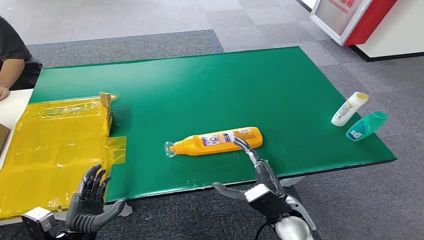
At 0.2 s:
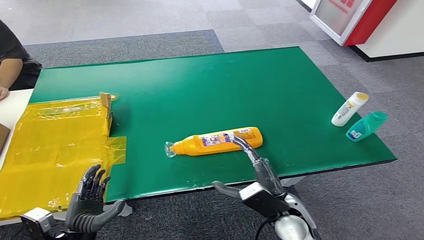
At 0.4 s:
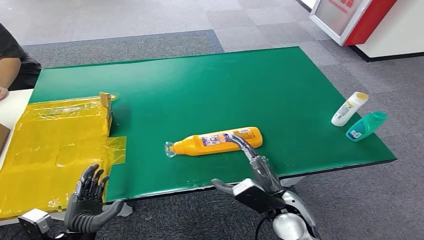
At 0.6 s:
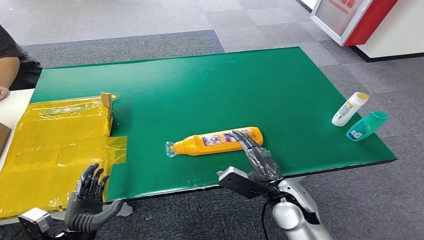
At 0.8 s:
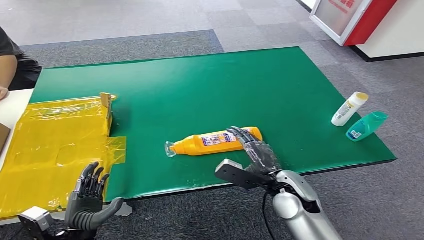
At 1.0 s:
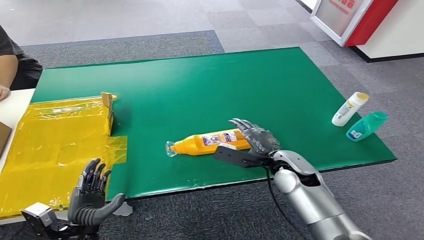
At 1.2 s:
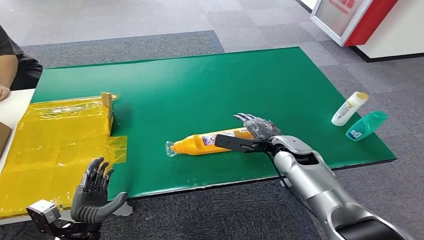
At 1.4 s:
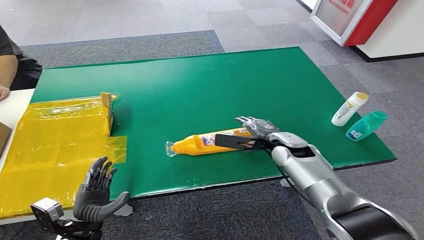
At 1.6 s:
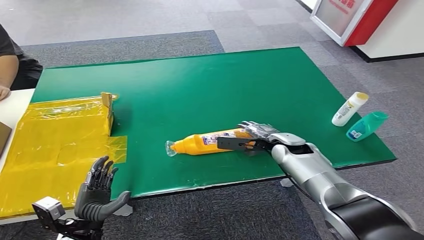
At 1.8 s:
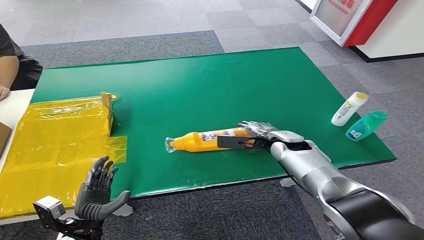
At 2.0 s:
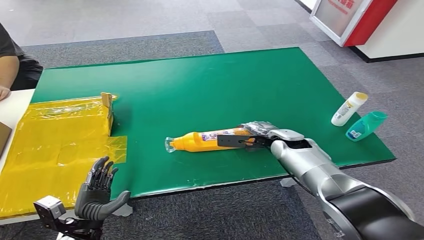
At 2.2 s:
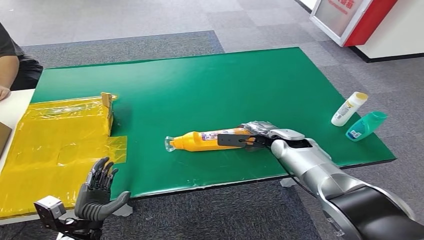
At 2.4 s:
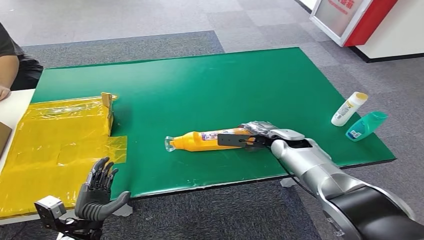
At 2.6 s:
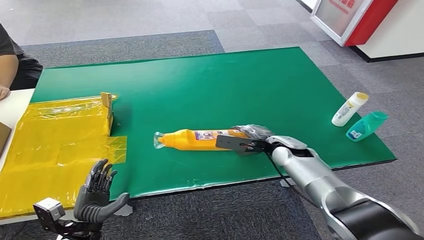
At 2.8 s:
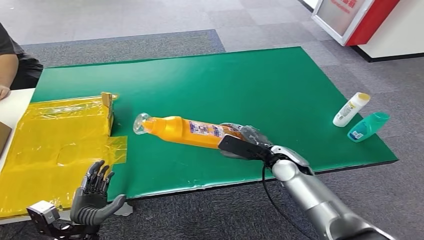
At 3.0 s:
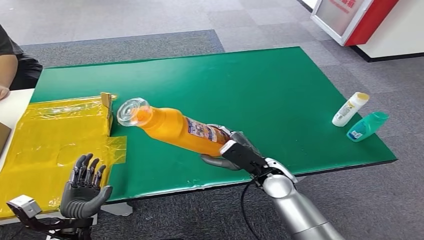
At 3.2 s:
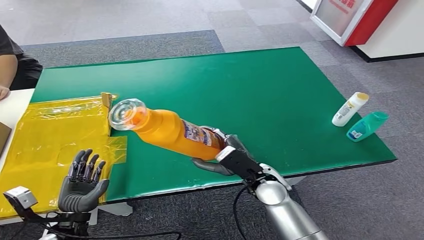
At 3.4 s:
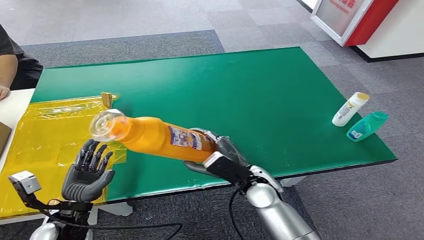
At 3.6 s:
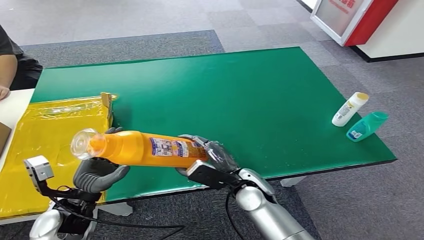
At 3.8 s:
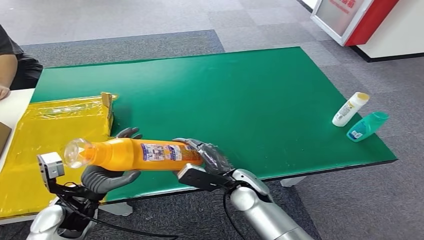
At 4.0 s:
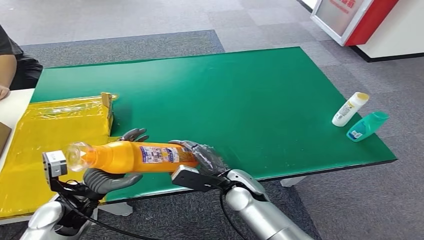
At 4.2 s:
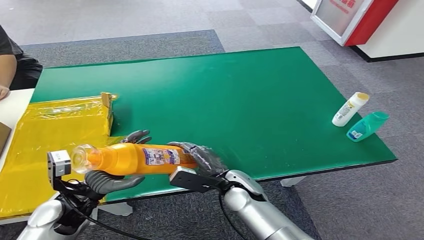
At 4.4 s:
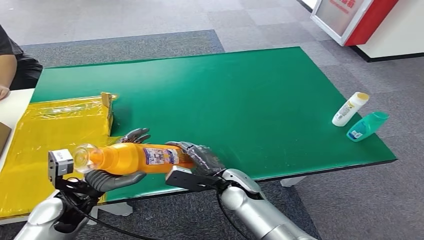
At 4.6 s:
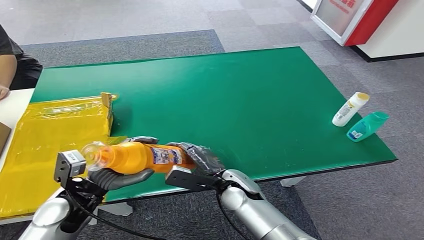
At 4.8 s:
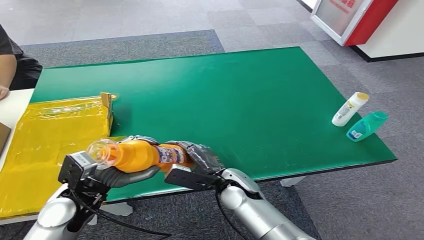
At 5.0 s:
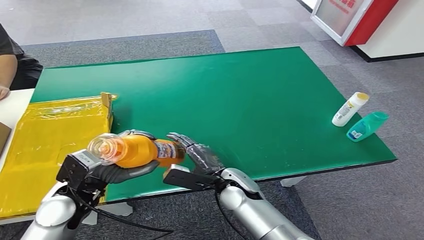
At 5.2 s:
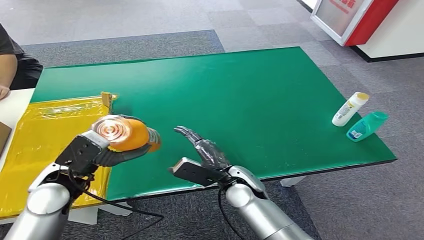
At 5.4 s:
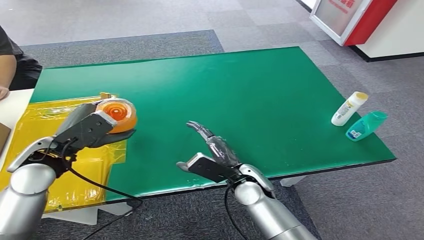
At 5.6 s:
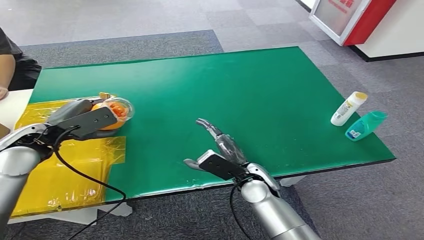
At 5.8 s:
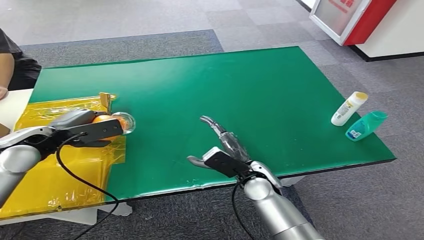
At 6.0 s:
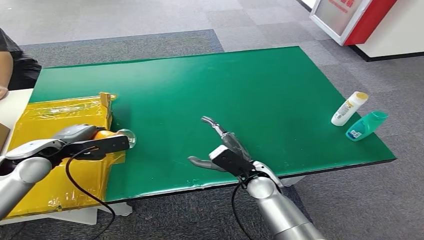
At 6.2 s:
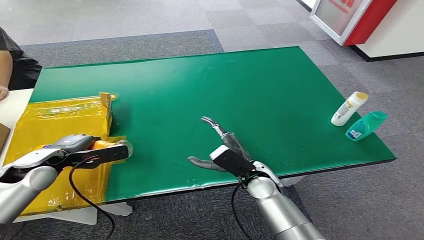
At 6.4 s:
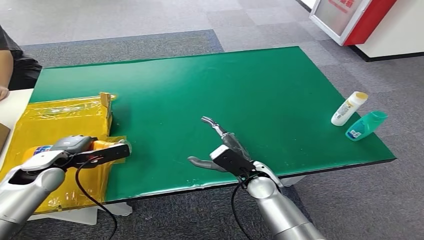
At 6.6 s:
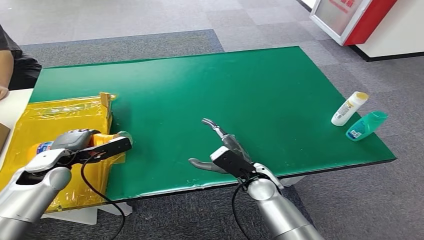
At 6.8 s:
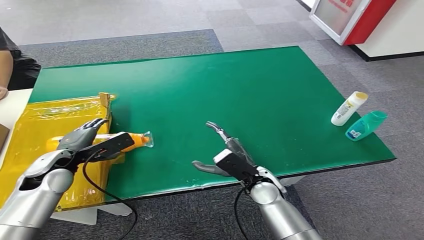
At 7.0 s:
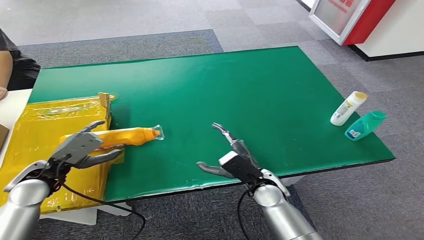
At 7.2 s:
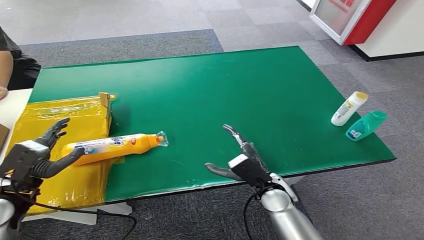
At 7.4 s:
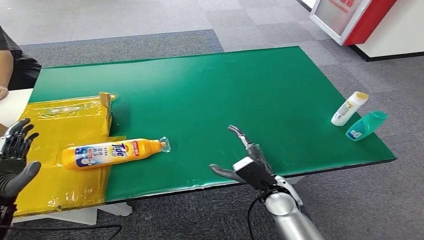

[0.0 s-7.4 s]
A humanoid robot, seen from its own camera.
Step, 0.0 to 3.2 s: Pick up the bottle from the table.
Step, 3.4 to 7.4 s: Turn the bottle to the front side.
1.4 to 3.0 s: The right hand is displaced backward and to the left by about 10 cm.
3.0 to 4.4 s: The right hand shifts approximately 10 cm to the left, while the left hand shifts about 10 cm upward and forward.
4.4 to 6.0 s: The right hand shifts about 5 cm to the right, while the left hand heads forward, upward and to the left, covering some 15 cm.
6.0 to 7.4 s: The right hand changes place by about 5 cm; the left hand shifts about 15 cm backward and to the left.

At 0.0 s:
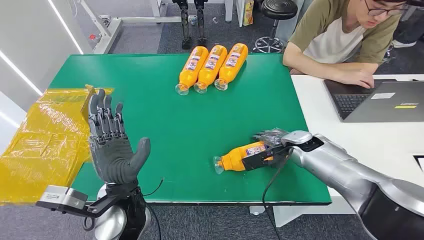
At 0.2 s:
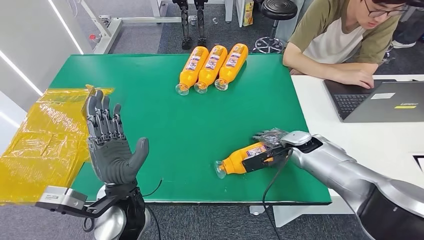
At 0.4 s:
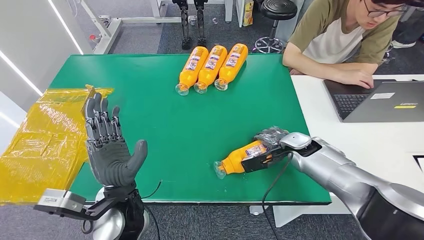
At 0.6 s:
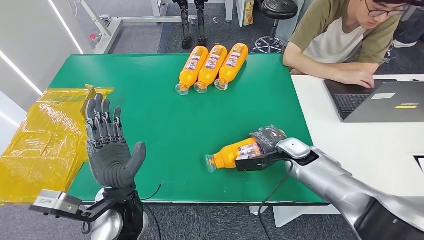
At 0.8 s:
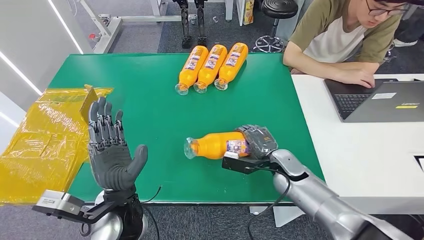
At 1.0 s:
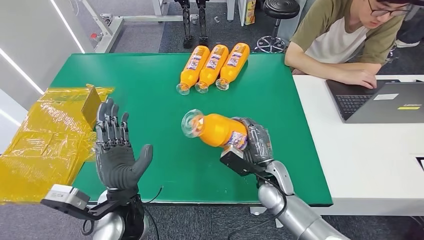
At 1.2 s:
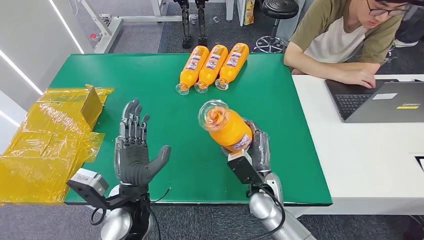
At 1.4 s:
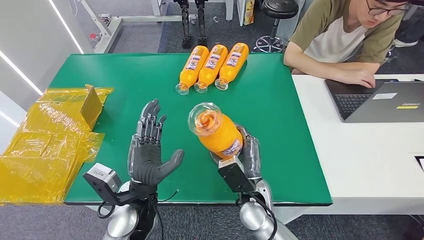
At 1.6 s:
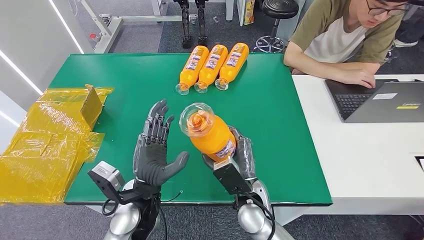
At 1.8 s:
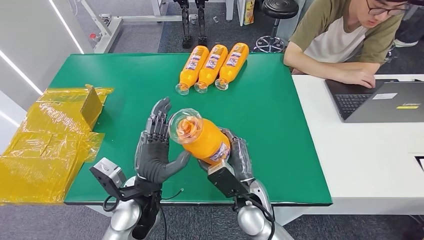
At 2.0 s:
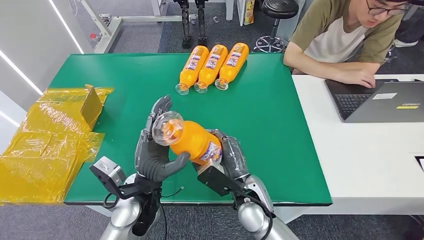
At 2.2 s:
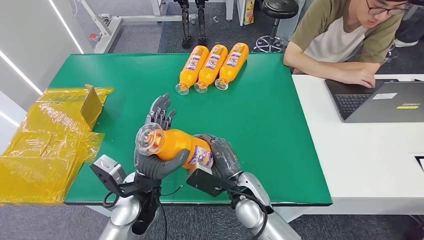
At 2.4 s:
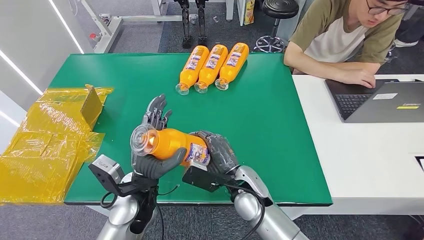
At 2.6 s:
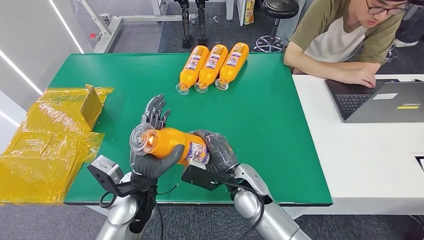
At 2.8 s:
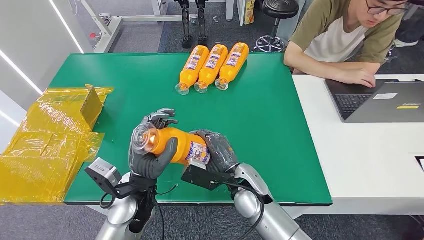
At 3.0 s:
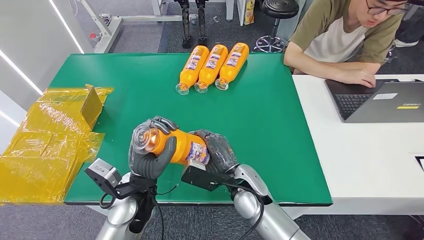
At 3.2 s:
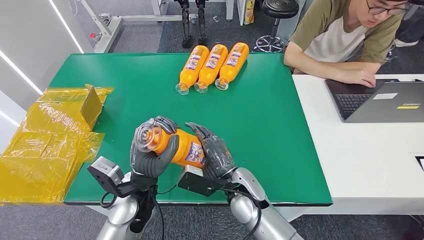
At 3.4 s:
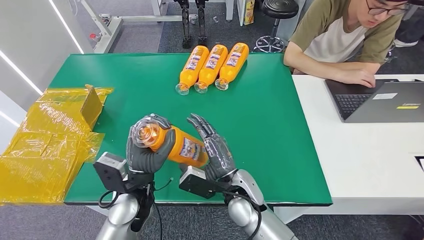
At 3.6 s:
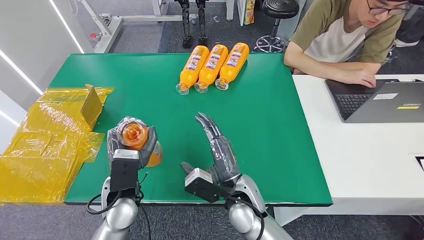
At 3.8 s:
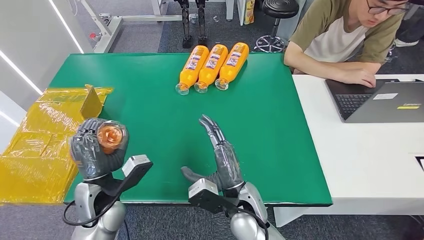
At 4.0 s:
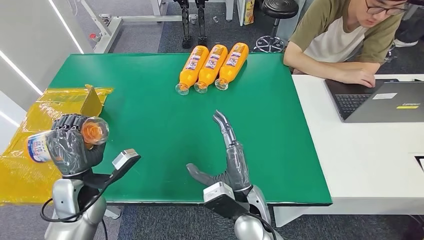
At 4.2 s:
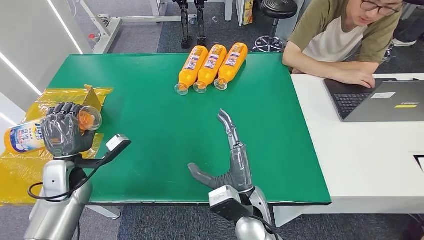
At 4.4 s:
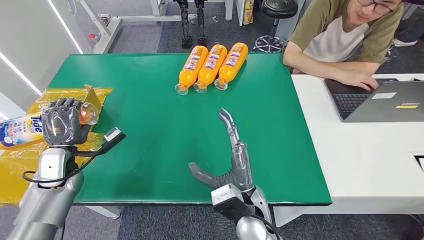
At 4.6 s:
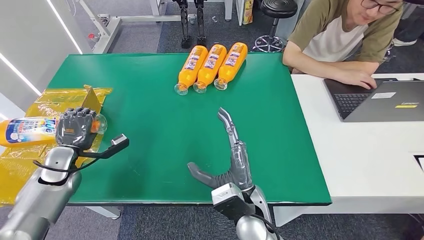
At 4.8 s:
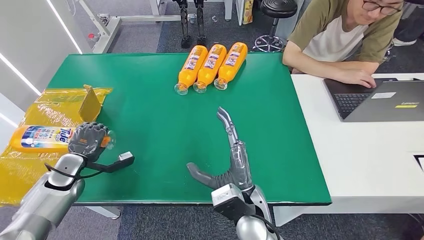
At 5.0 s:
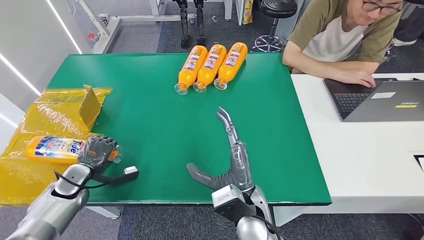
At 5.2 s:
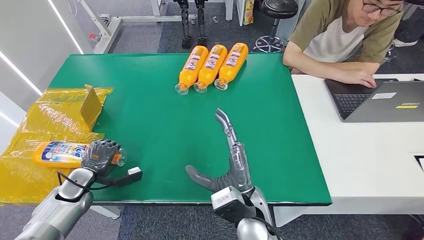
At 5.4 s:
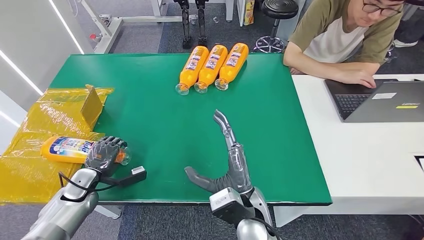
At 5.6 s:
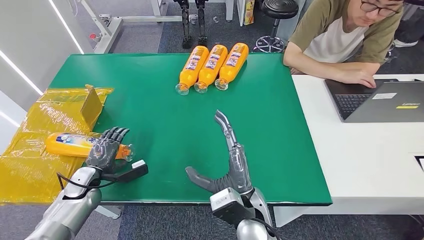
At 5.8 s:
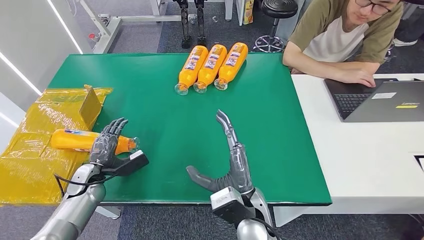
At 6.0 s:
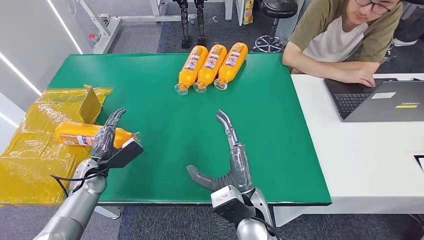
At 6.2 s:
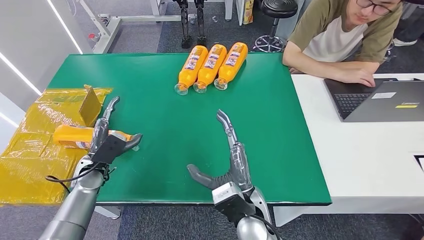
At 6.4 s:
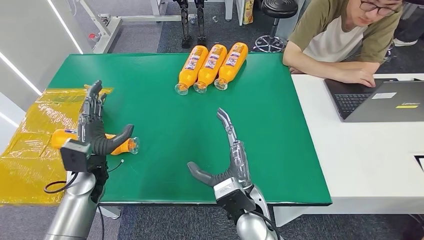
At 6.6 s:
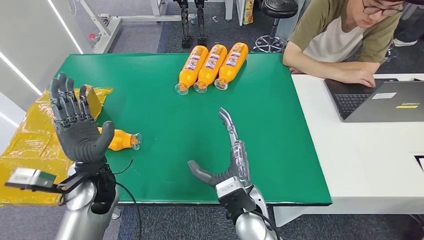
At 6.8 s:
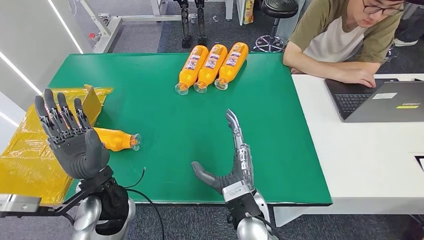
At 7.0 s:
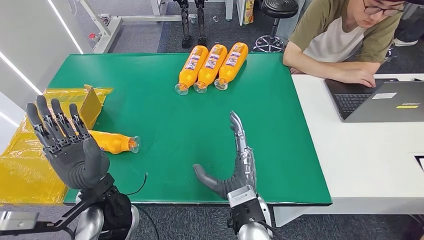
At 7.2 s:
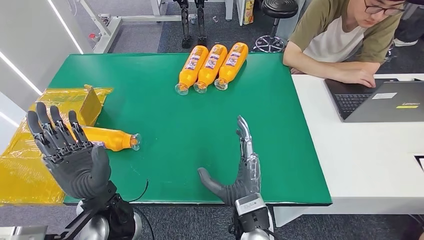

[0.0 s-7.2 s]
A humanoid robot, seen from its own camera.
Step, 0.0 to 2.2 s: Pick up the bottle from the table.
Step, 2.4 to 7.2 s: Turn the bottle to the front side.
4.4 to 5.8 s: The left hand travels downward by about 10 cm.
5.8 to 7.2 s: The left hand is displaced to the right and upward by approximately 25 cm.

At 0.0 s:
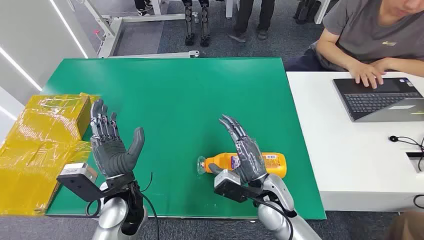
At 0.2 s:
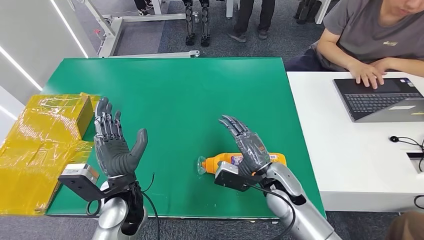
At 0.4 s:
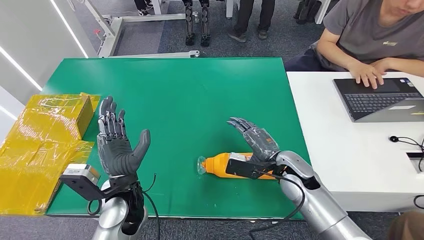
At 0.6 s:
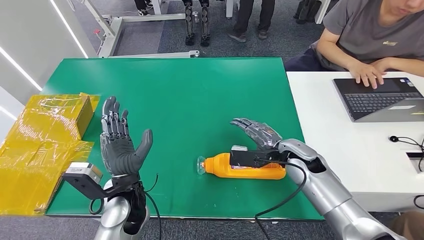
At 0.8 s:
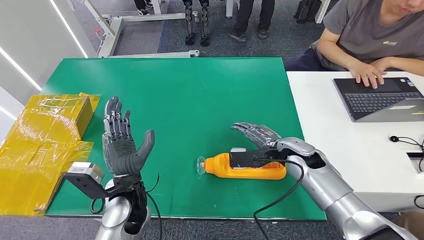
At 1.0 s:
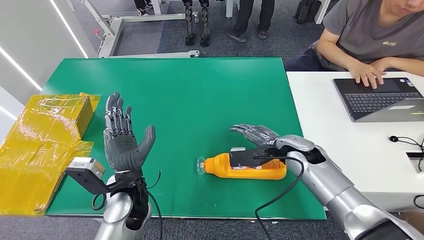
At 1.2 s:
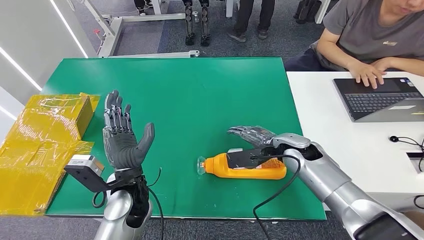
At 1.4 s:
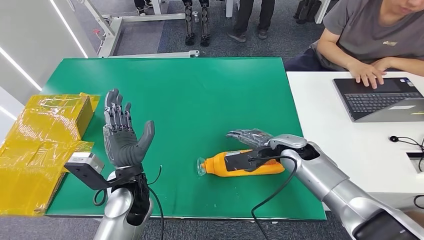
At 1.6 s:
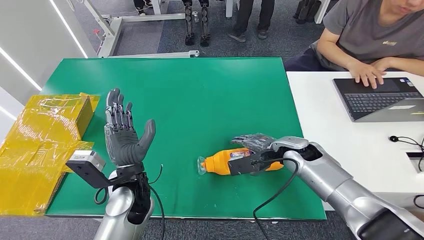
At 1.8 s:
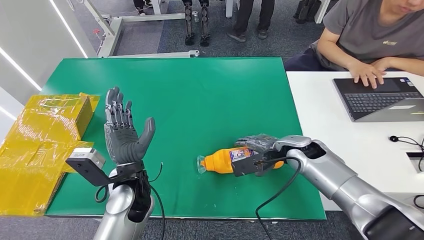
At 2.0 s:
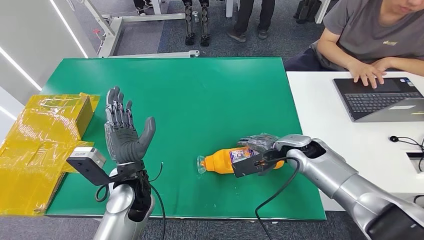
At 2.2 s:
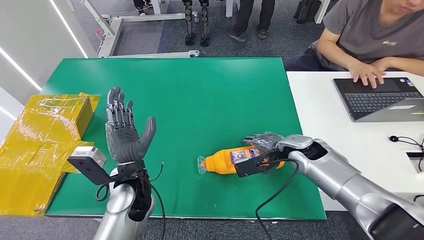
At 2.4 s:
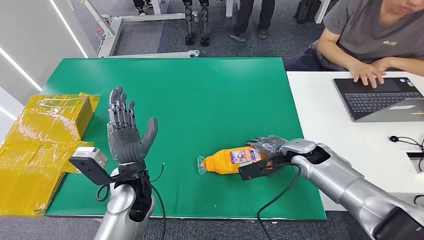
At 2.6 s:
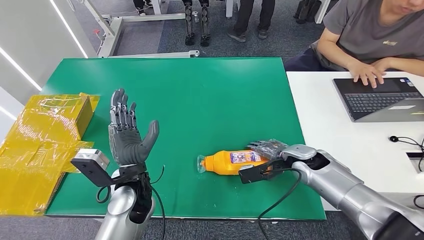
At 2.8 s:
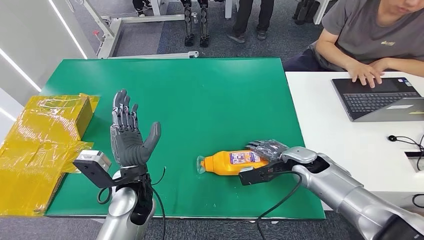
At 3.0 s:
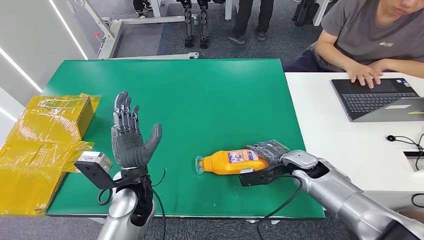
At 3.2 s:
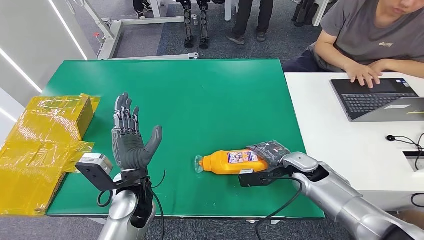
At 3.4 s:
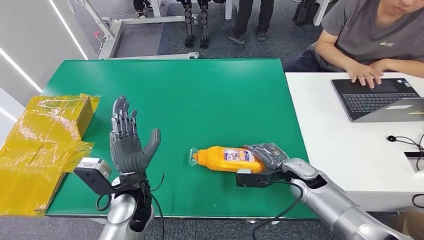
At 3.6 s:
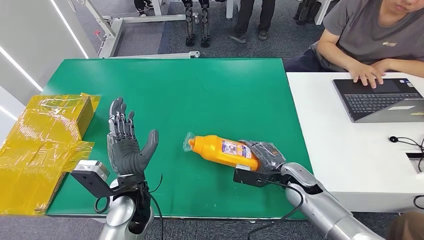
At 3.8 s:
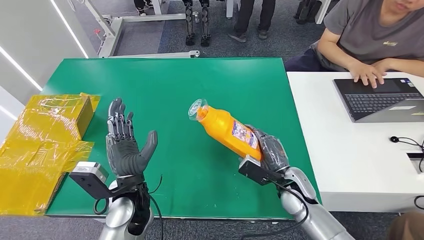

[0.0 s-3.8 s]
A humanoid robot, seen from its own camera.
1.2 to 2.6 s: The right hand moves some 5 cm.
2.6 to 3.8 s: The right hand moves backward, about 5 cm.
